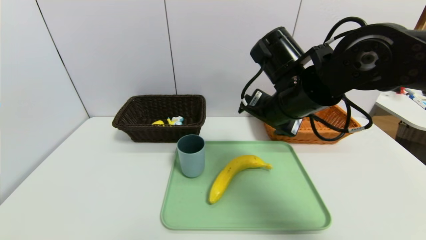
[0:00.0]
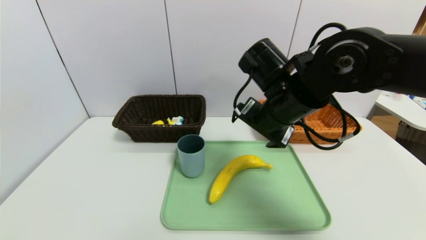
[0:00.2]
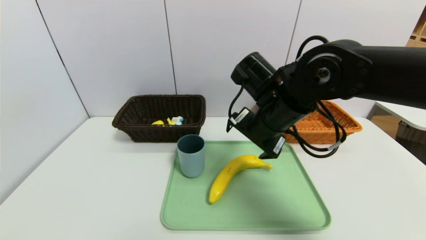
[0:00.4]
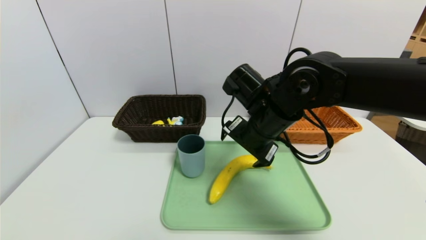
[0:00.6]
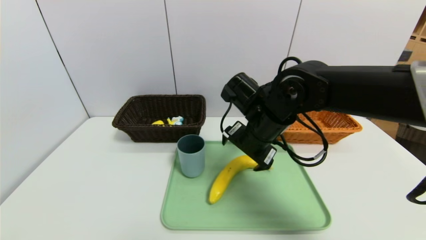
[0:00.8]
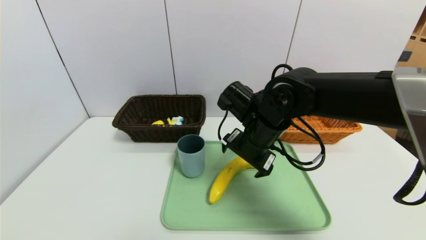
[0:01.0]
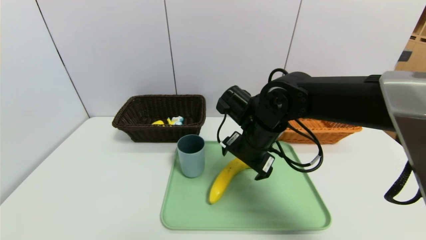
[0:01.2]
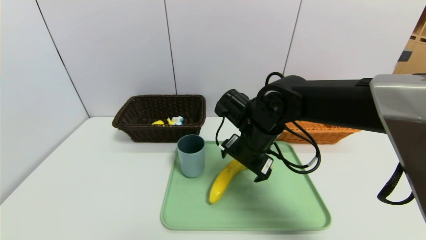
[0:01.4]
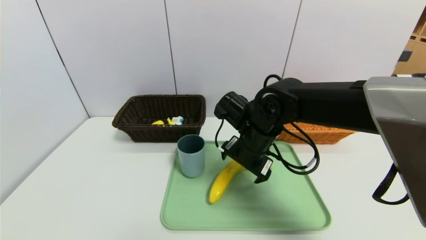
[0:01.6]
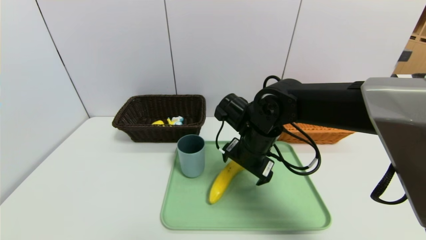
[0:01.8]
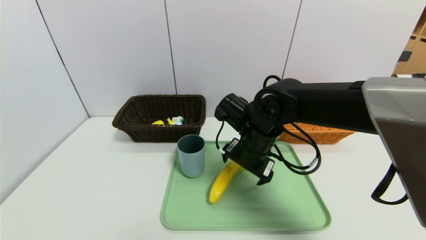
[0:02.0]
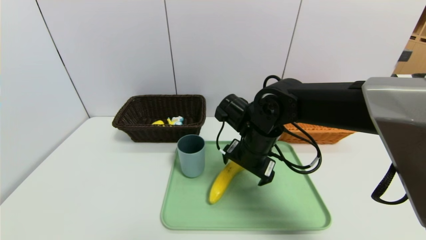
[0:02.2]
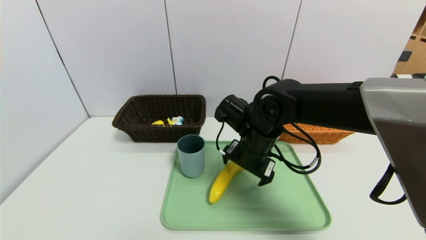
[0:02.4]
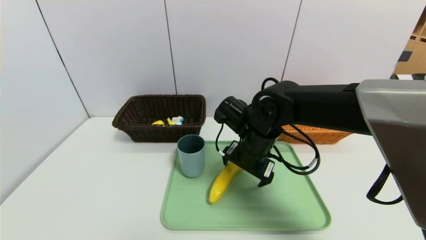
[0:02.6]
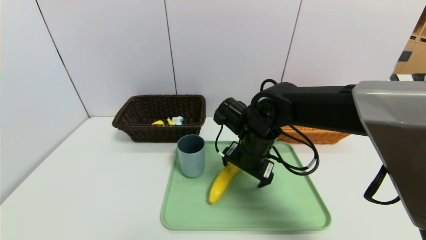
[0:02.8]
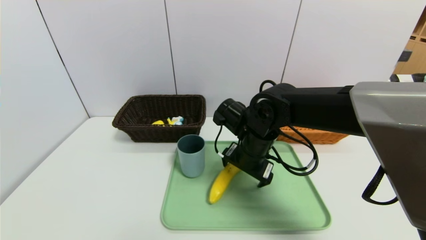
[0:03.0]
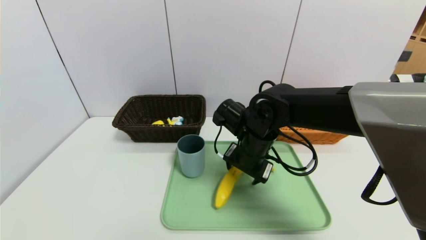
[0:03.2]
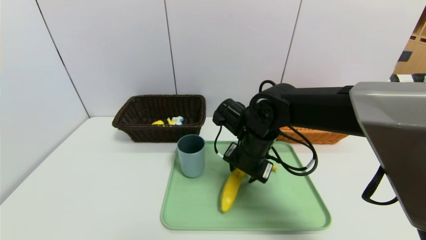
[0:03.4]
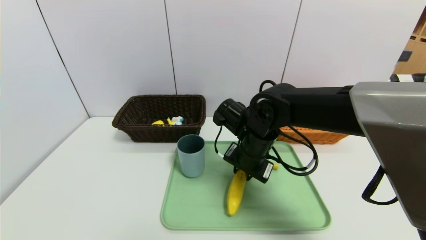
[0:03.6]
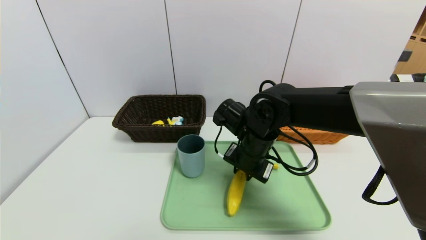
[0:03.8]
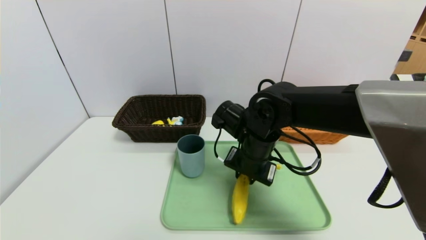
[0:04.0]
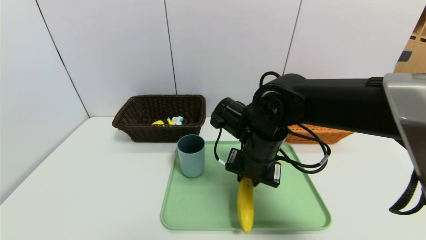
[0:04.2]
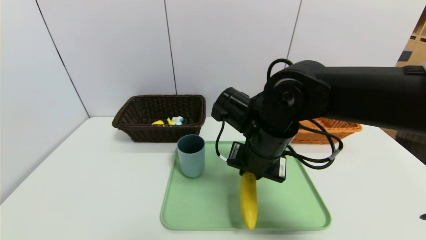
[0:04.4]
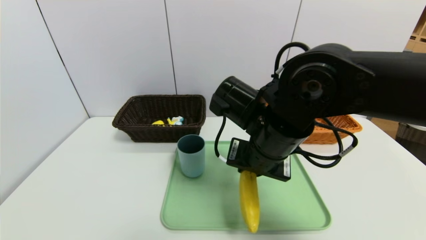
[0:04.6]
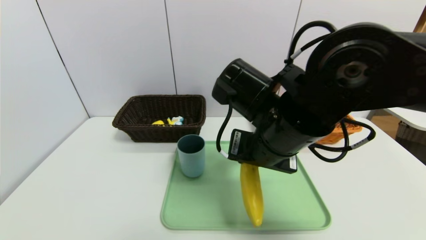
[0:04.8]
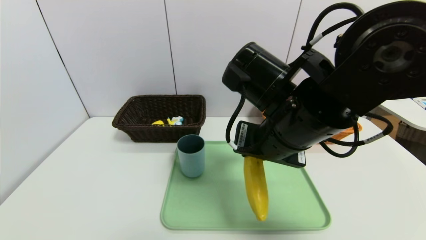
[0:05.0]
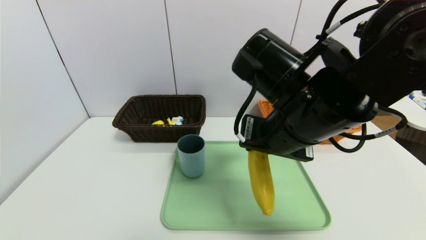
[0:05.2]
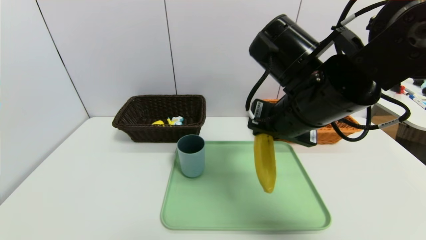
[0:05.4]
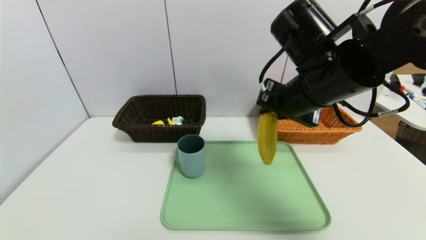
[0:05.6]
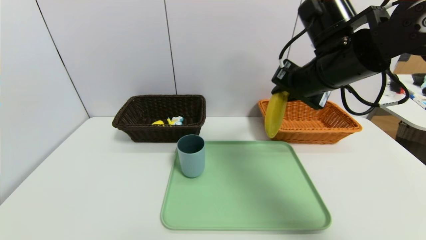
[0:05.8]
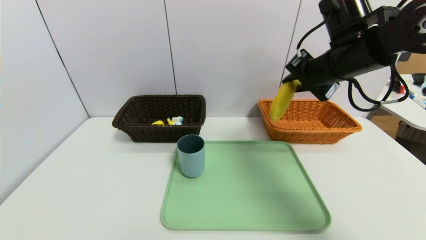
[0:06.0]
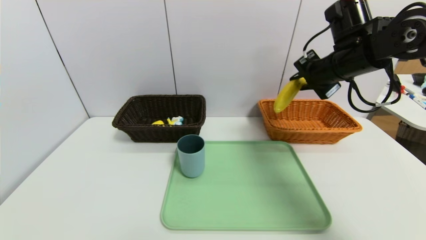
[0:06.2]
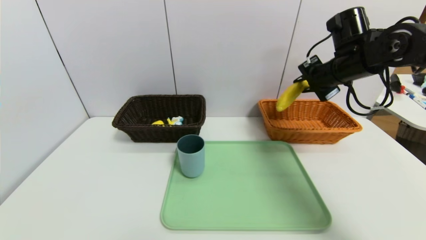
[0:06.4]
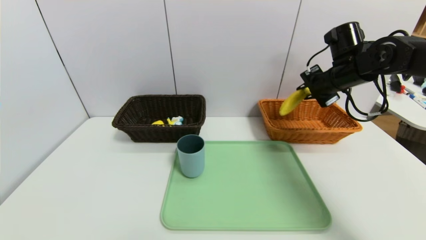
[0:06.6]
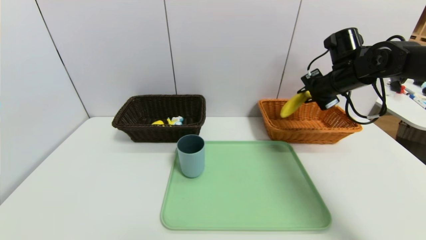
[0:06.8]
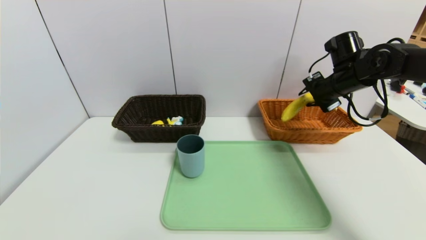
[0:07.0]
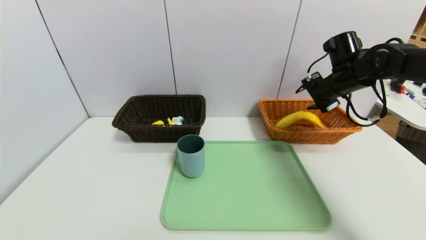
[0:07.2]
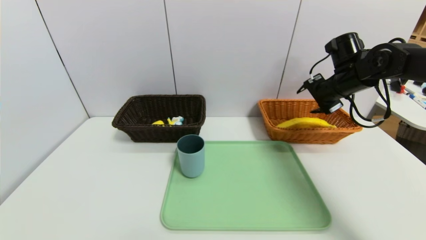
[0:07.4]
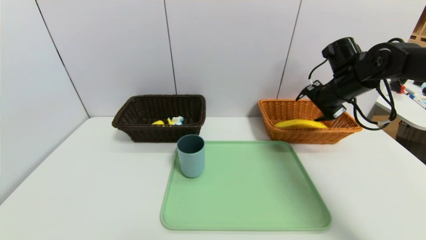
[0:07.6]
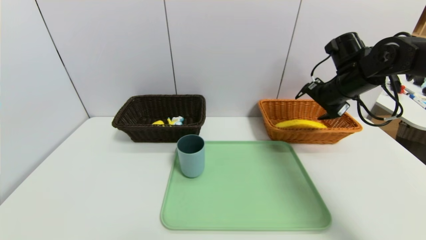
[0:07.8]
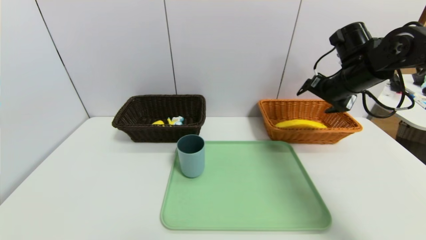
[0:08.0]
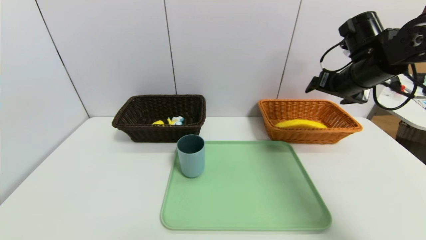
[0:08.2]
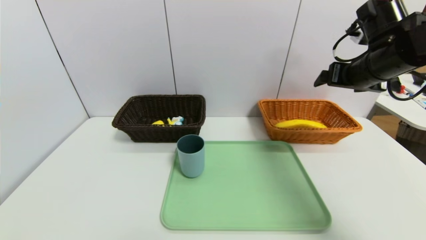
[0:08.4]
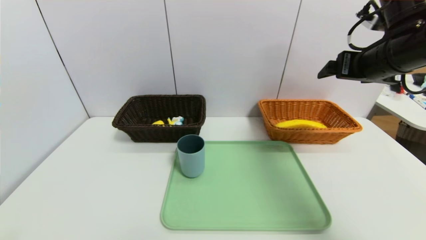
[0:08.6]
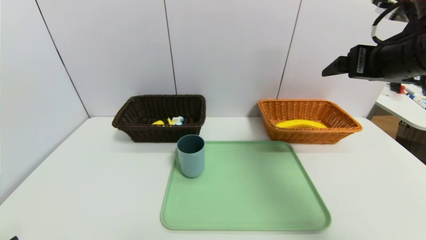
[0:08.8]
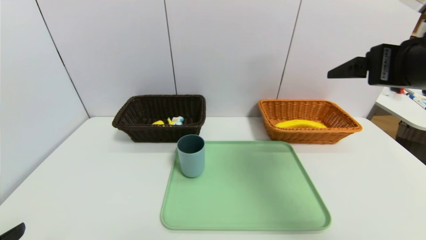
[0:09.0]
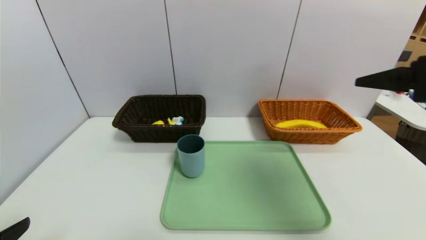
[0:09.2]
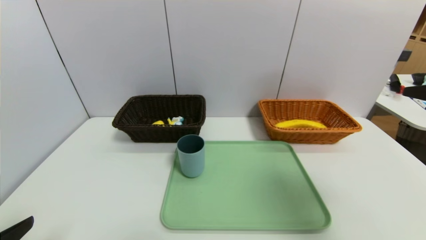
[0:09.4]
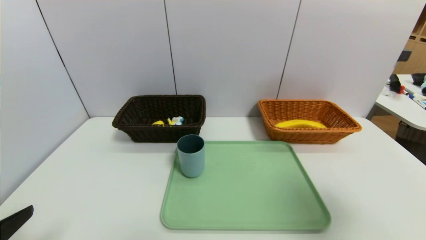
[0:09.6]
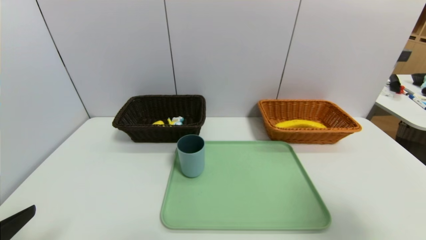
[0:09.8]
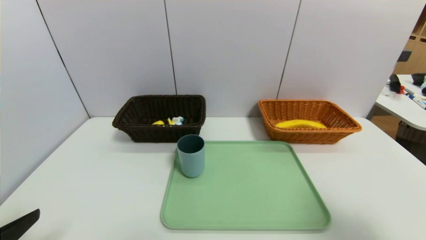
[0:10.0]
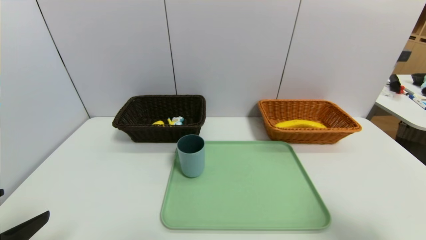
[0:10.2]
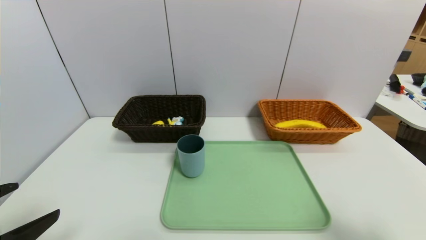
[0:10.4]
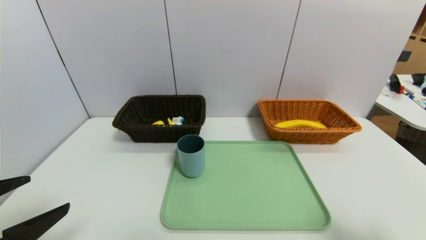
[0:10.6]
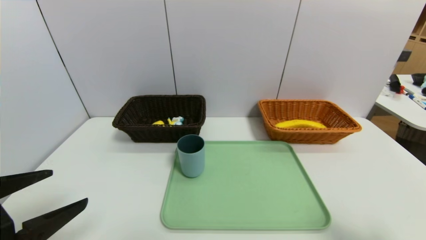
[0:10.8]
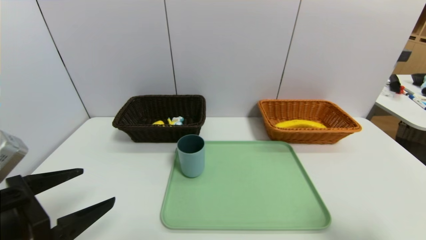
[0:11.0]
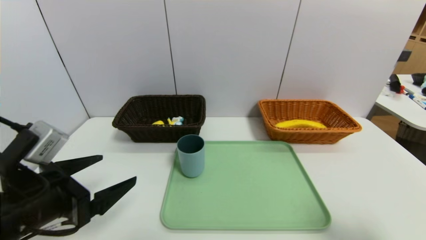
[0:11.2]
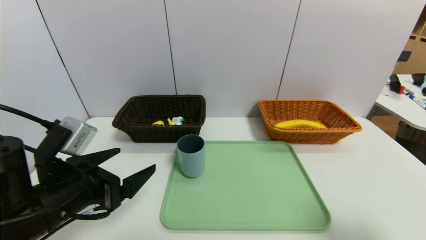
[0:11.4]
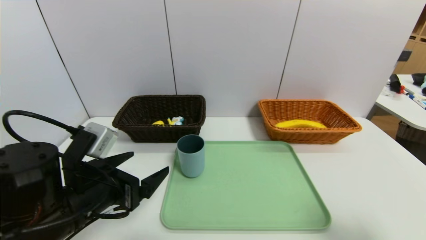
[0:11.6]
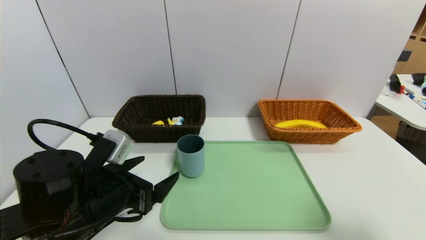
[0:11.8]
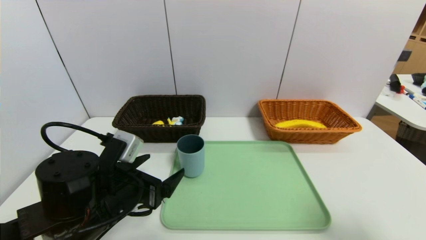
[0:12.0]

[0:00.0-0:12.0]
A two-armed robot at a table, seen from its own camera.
Task of the whole recording: place the food in the right basket with the right gripper, and place the non food items in the left basket with the left gripper.
Step, 0:00.0 to 0:07.8: Grasp the banana and put it in the right basket.
0:00.0 to 0:01.6: The right gripper travels downward by approximately 10 cm.
0:01.6 to 0:03.0: The grippers stay close to where they were, moving slightly.
0:03.0 to 0:04.4: The right gripper moves backward and upward, some 5 cm, and closes.
0:04.4 to 0:06.0: The right gripper shifts about 20 cm to the right, upward and forward.
0:06.0 to 0:07.6: The right gripper heads to the right, downward and forward, covering roughly 15 cm, and opens its fingers.
0:07.6 to 0:09.0: The left gripper travels upward by approximately 5 cm; the right gripper moves backward and upward, some 25 cm.
0:09.0 to 0:10.4: The right gripper moves backward, downward and to the right, roughly 20 cm.
0:10.4 to 0:12.0: The left gripper travels forward, to the right and downward by some 20 cm.

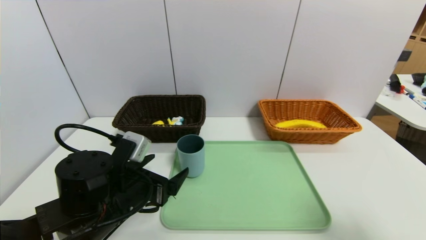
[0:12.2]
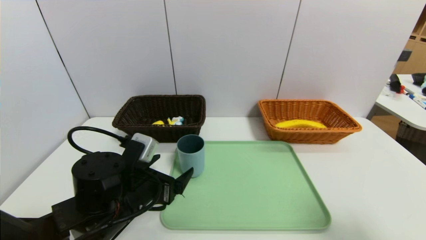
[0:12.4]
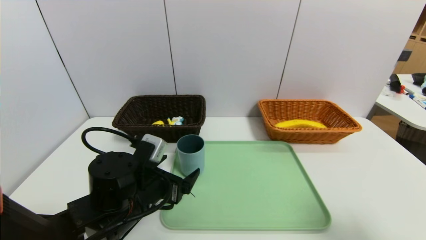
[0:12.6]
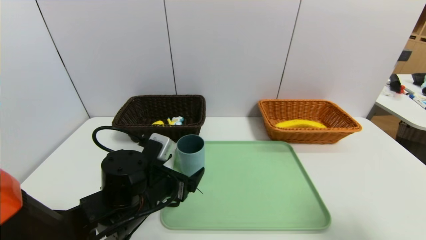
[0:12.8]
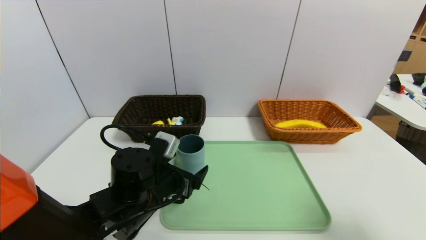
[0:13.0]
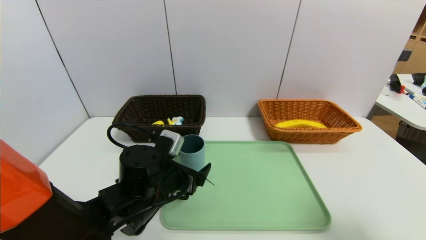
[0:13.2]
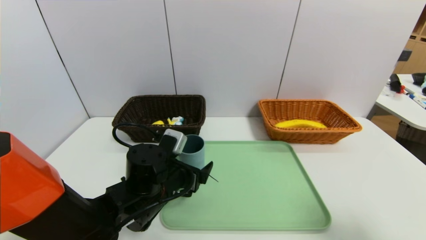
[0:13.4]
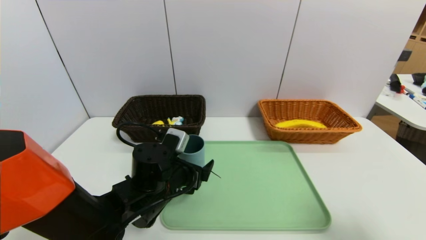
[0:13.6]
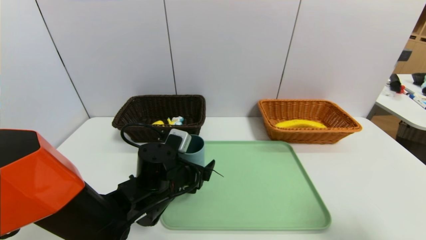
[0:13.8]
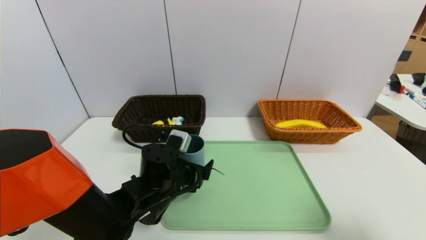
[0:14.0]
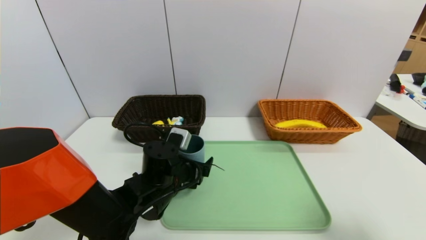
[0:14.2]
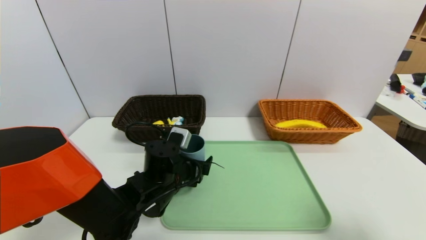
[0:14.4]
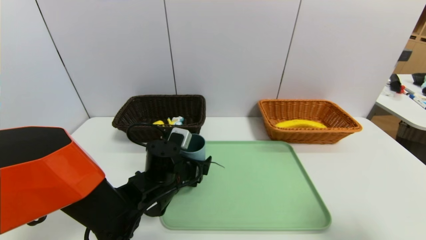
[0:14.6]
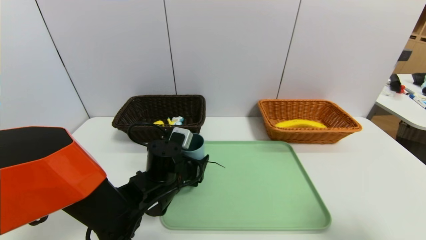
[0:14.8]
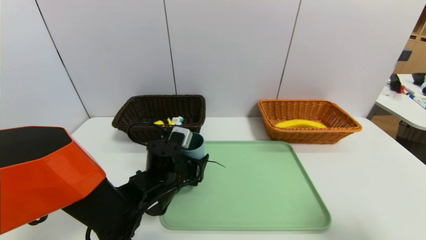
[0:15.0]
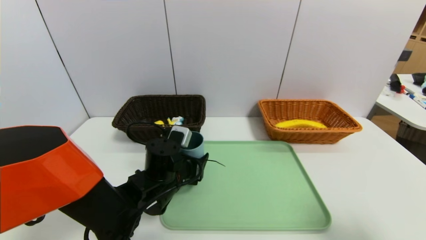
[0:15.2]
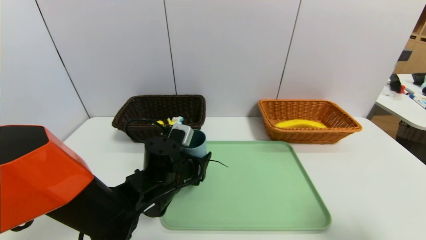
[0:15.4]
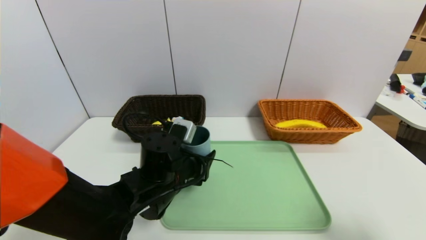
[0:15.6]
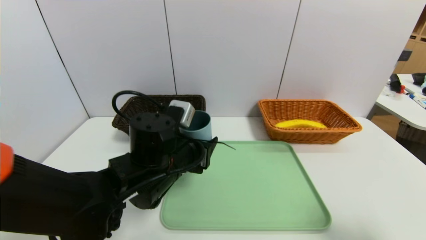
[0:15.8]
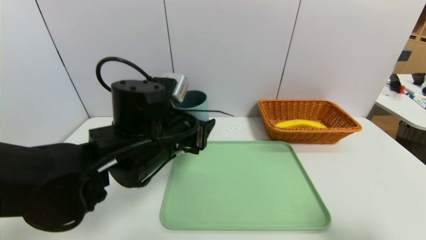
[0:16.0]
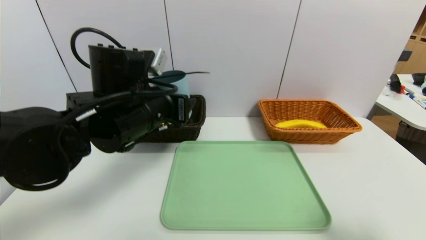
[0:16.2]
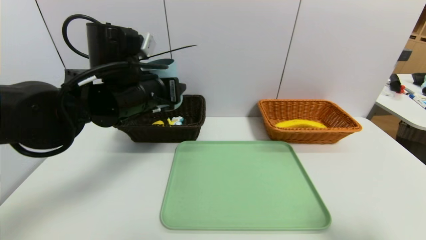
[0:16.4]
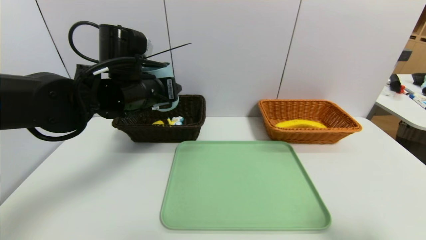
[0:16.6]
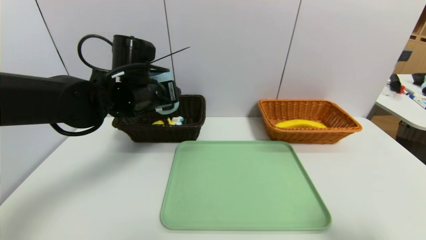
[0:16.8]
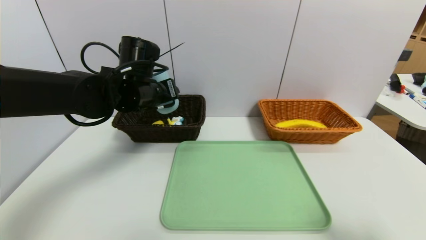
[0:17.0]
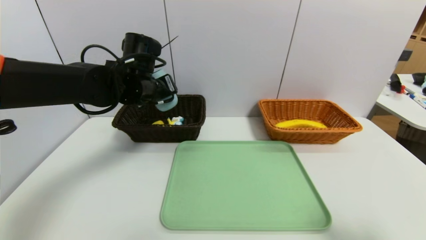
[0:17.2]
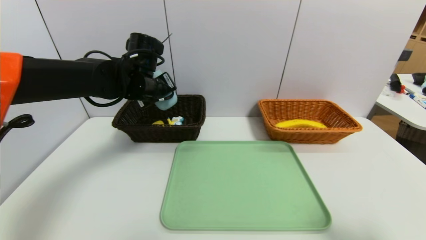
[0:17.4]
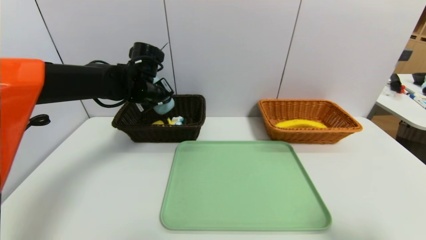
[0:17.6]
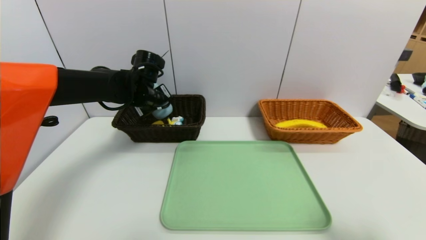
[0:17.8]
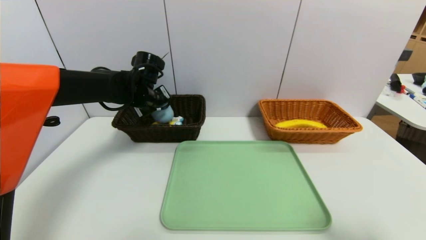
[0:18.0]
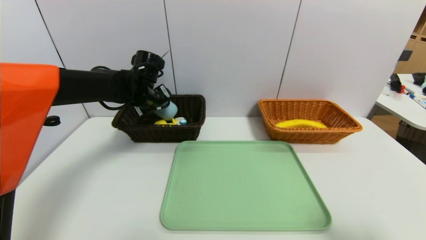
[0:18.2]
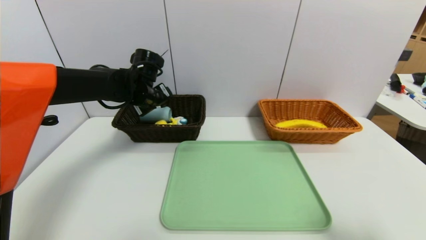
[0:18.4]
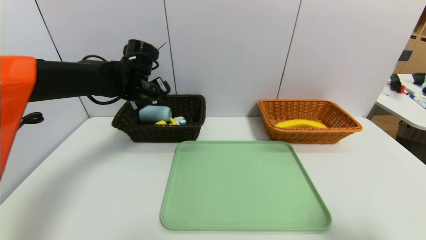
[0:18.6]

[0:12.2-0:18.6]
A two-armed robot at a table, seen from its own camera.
Task of the whole recording: place the food in the right basket with the right gripper, and place the non food items in the left basket with the left gripper.
Step, 0:12.2 to 0:18.6: Grasp the blue cup and put it in the left basket.
0:12.2 to 0:13.8: The left gripper moves to the right and forward, approximately 10 cm.
0:13.8 to 0:15.4: The left gripper closes its fingers.
0:15.4 to 0:17.0: The left gripper goes some 15 cm upward and forward.
0:17.0 to 0:18.6: The left gripper heads forward, covering some 5 cm, and opens up.
